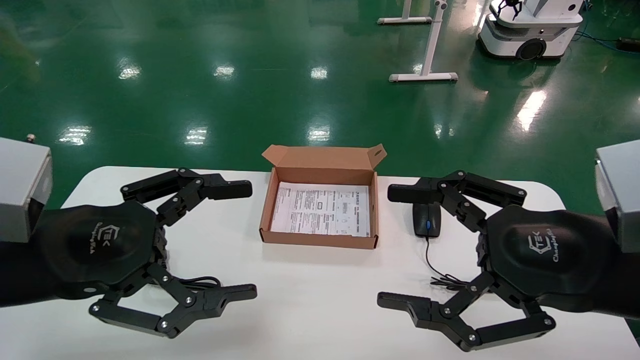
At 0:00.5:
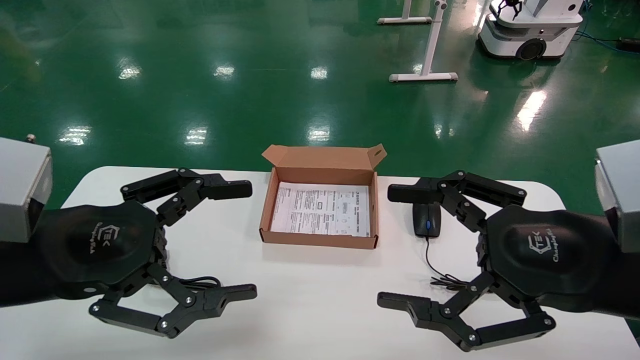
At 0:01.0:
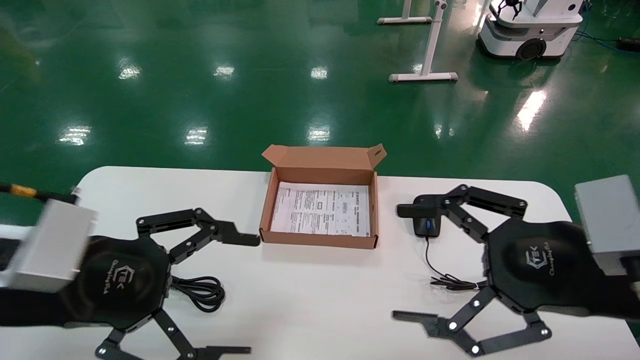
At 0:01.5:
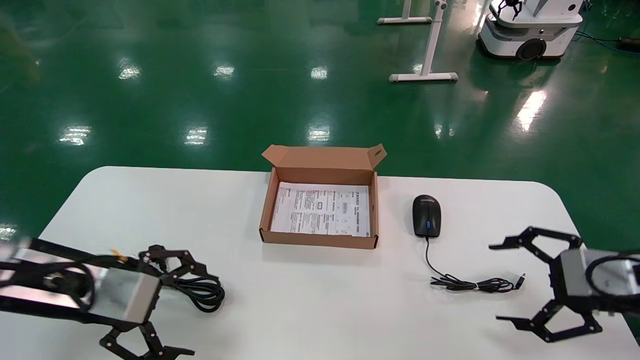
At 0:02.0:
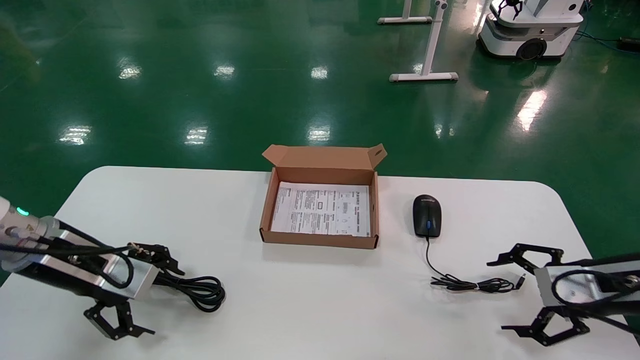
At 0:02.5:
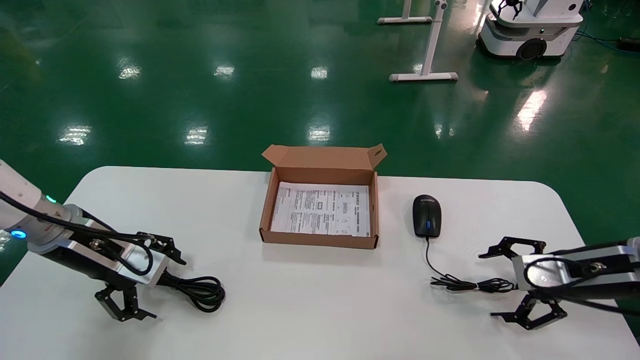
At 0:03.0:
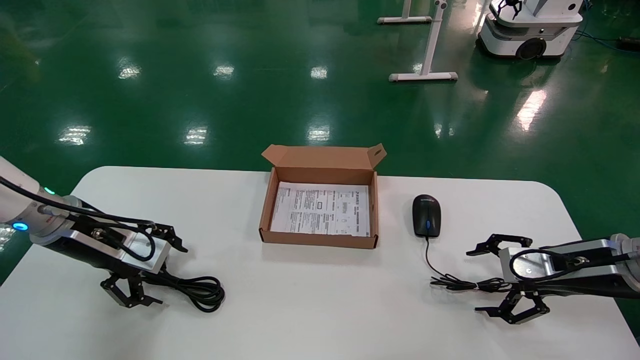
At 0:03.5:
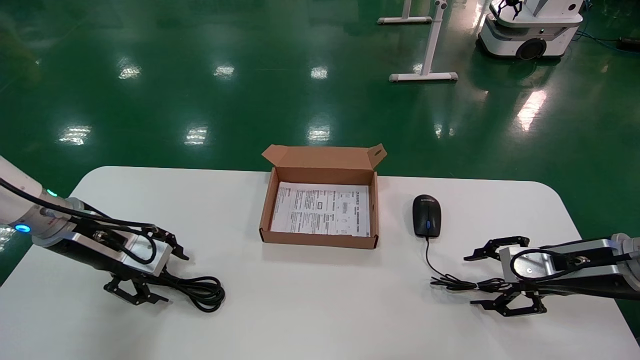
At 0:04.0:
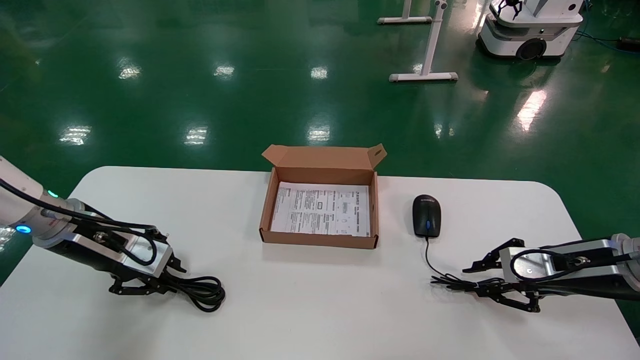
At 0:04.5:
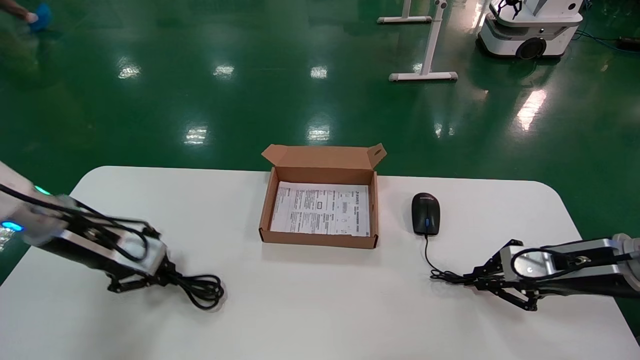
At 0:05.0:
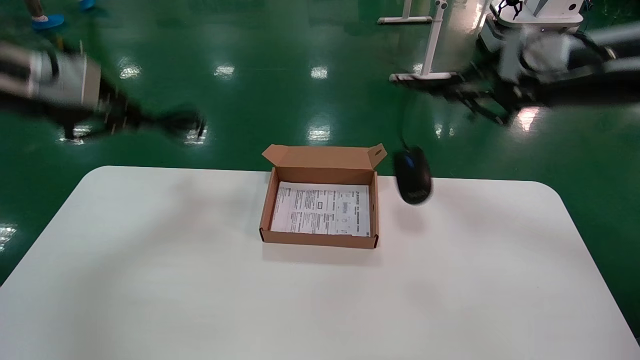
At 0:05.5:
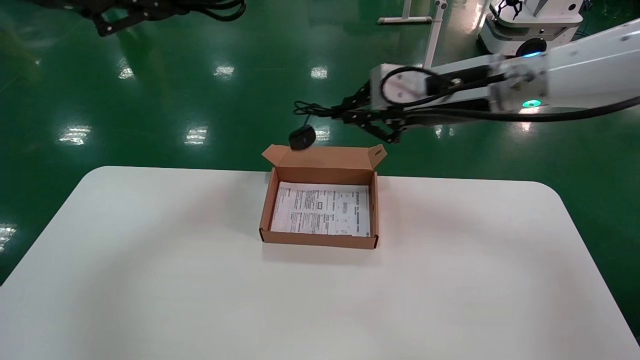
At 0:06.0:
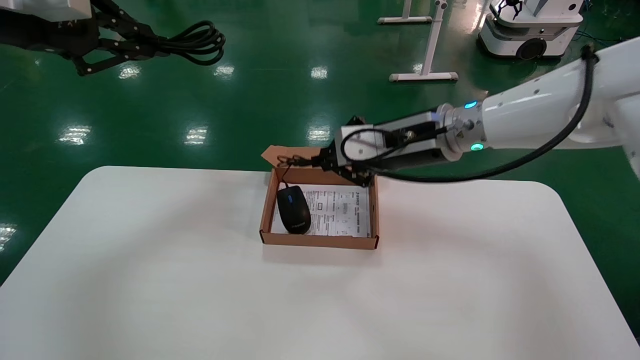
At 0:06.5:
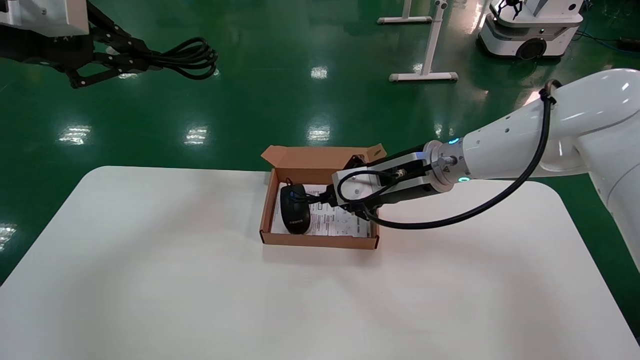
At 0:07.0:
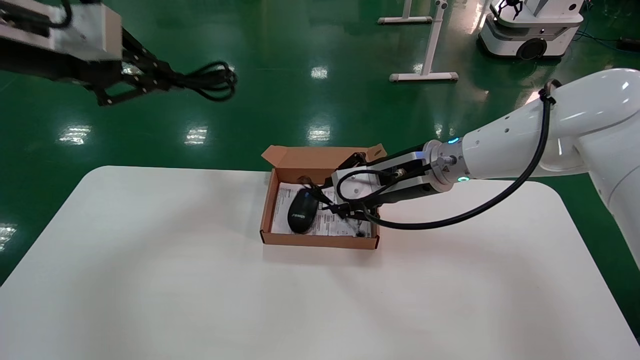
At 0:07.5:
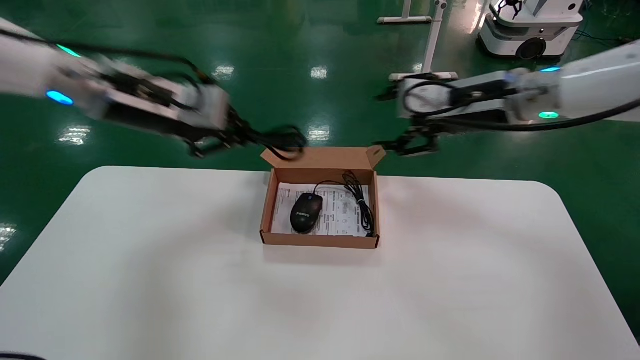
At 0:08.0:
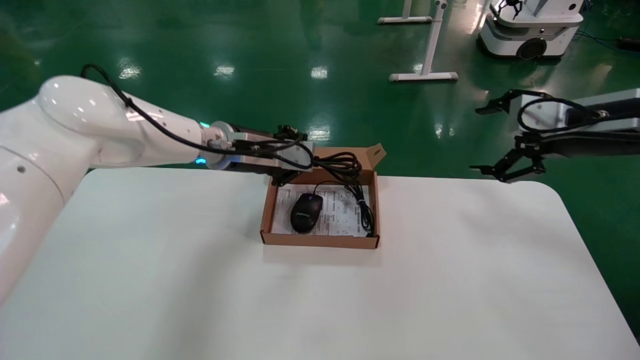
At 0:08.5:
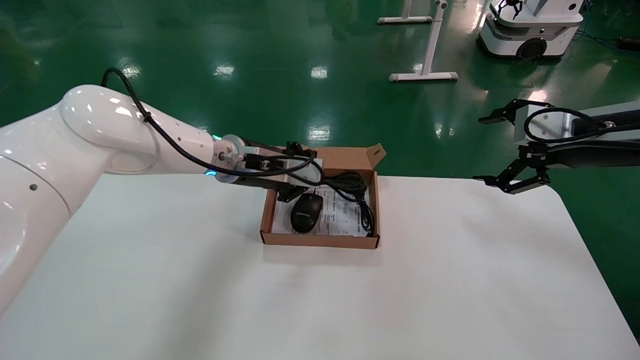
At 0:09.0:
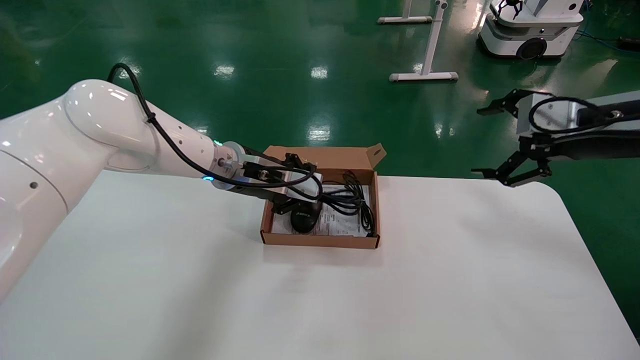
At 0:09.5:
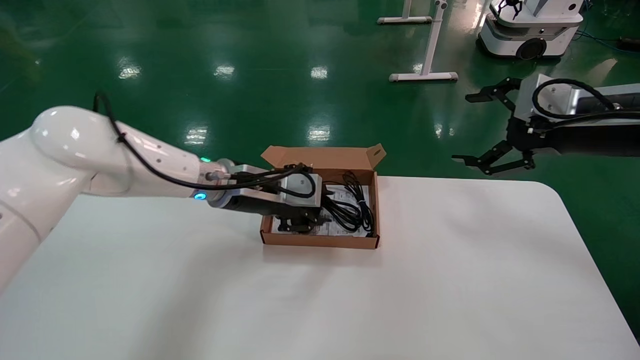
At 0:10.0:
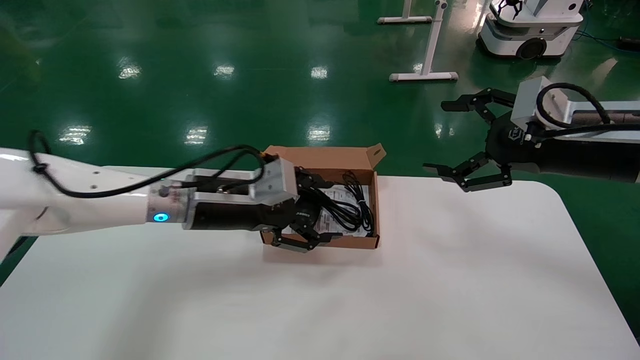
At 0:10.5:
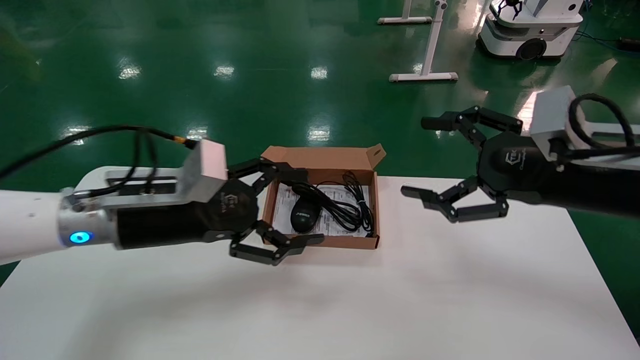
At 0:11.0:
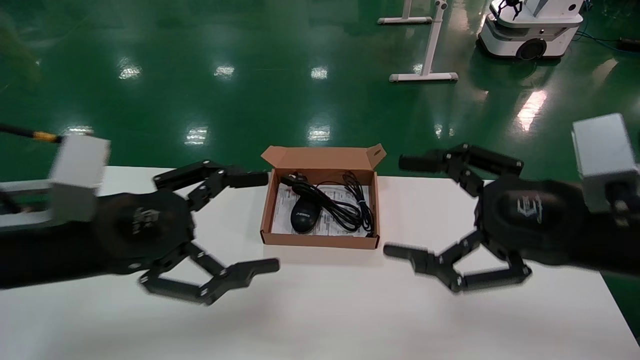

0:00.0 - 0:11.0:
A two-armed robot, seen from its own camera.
Step, 0:01.0 - 0:04.0: Grab and lift both the mouse and power cord from the accessory packaging area at the same time.
Step, 0:04.5 - 0:09.0: Place the mouse and power cord into the box.
0:00.0 - 0:02.0: The right gripper shifts roughly 20 cm to the right, forward and downward. Meanwhile the left gripper travels forward, to the left and downward by roughly 15 cm.
0:02.0 - 0:03.5: There are only small adjustments of the grippers.
0:03.5 - 0:05.5: The right gripper heads upward and to the left, covering approximately 30 cm, and closes up; the left gripper goes approximately 30 cm upward, and closes up.
0:05.5 - 0:07.5: The right gripper reaches some 10 cm downward, then returns, and opens its fingers, while the left gripper moves downward, to the right and forward, approximately 15 cm.
0:07.5 - 0:09.0: The right gripper goes some 15 cm to the right, and opens, while the left gripper travels downward, to the right and forward by some 15 cm.
0:09.0 - 0:11.0: The left gripper is displaced backward and to the left by roughly 25 cm, and opens up, while the right gripper shifts some 20 cm backward, to the left and downward.

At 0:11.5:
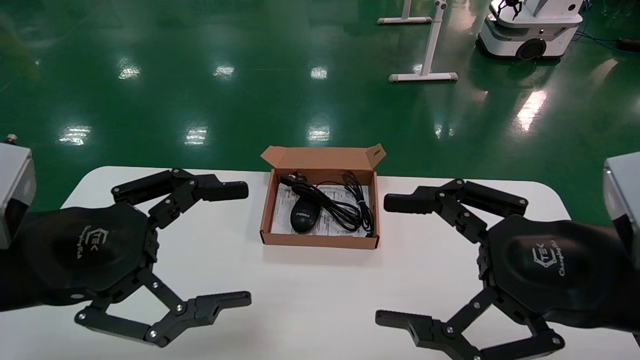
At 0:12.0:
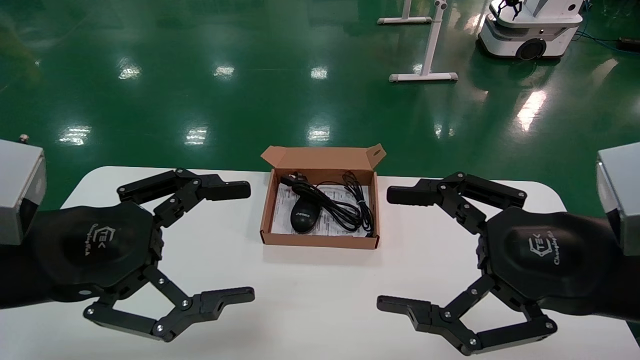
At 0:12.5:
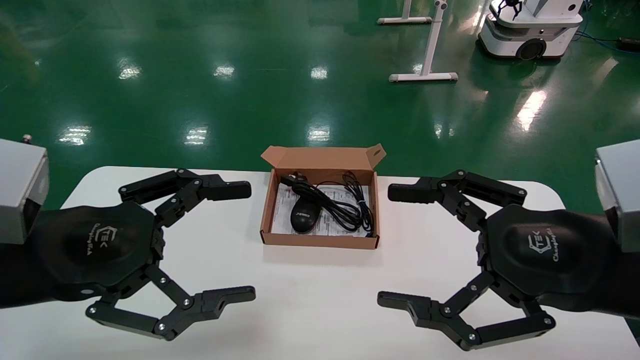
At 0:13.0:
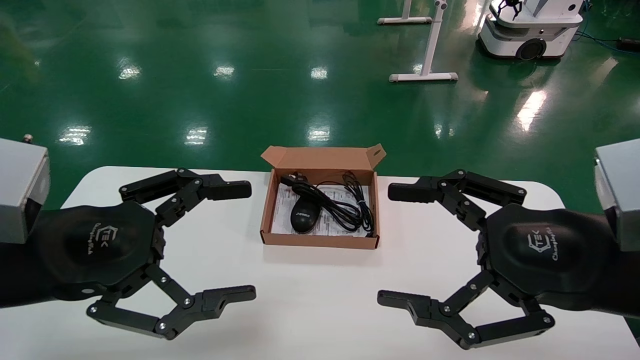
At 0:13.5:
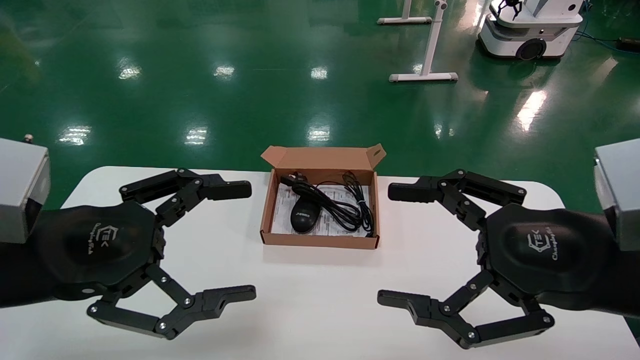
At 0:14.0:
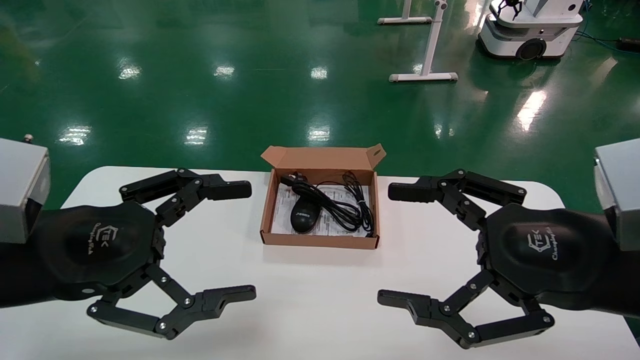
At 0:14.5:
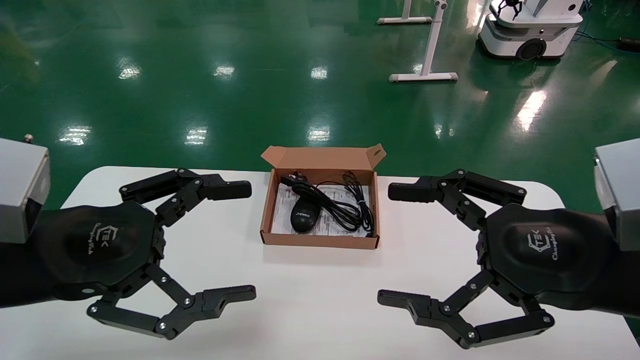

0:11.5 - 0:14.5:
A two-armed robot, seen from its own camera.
0:11.5 - 0:14.5: The two grippers keep their place.
